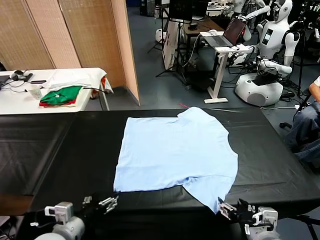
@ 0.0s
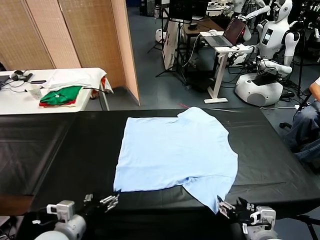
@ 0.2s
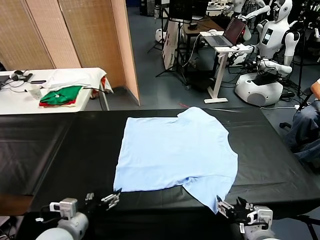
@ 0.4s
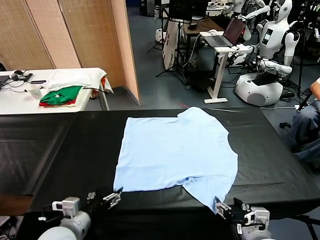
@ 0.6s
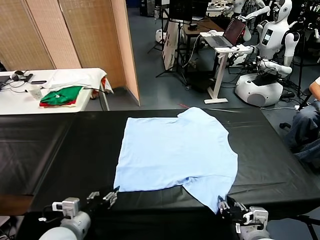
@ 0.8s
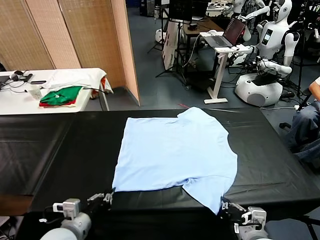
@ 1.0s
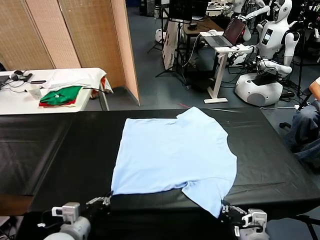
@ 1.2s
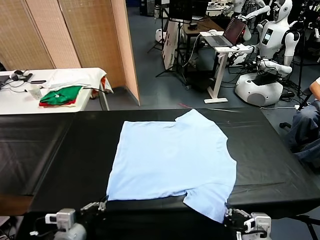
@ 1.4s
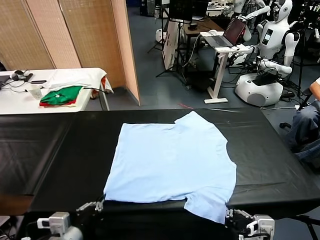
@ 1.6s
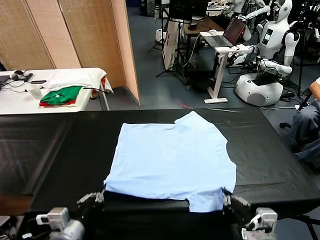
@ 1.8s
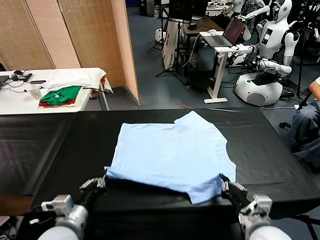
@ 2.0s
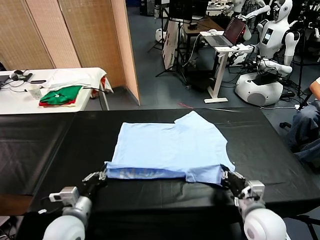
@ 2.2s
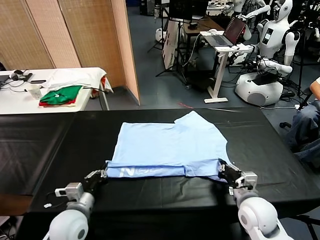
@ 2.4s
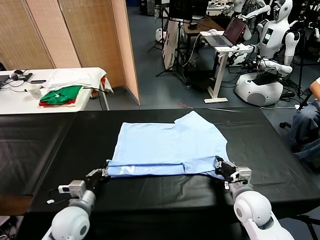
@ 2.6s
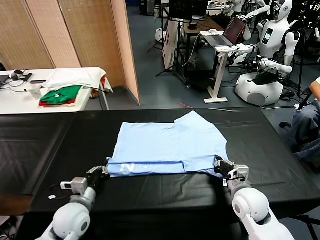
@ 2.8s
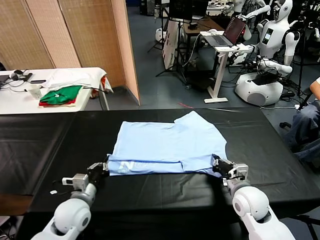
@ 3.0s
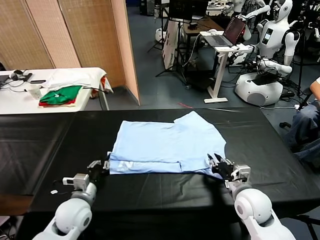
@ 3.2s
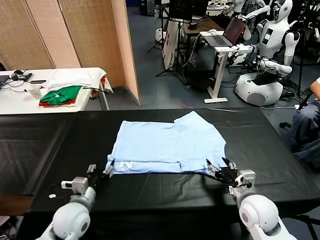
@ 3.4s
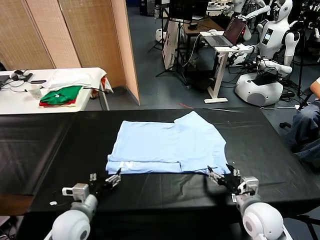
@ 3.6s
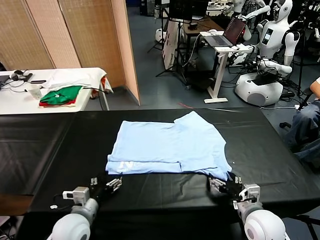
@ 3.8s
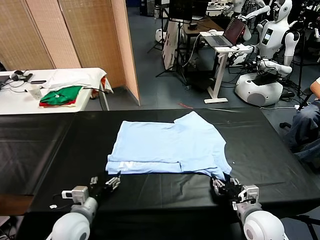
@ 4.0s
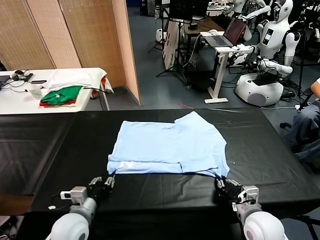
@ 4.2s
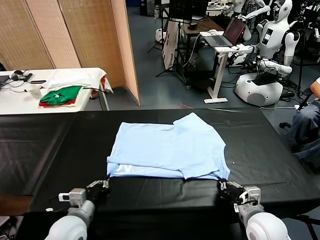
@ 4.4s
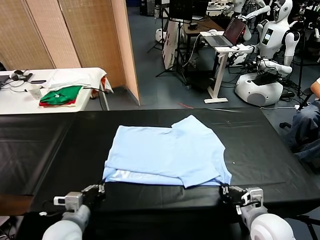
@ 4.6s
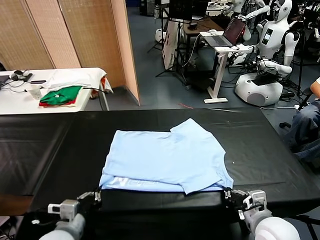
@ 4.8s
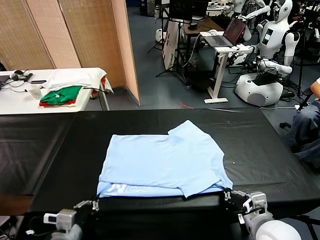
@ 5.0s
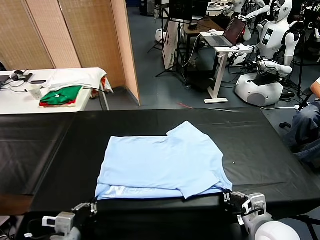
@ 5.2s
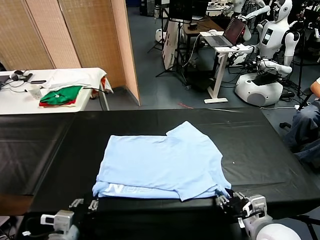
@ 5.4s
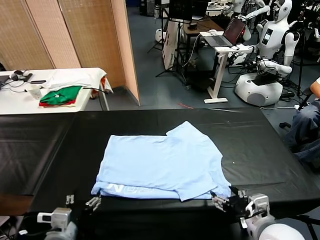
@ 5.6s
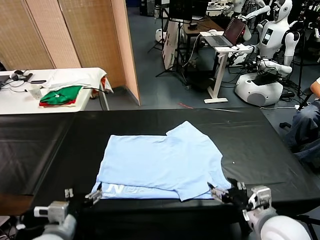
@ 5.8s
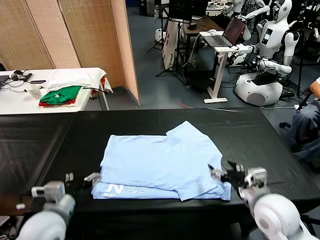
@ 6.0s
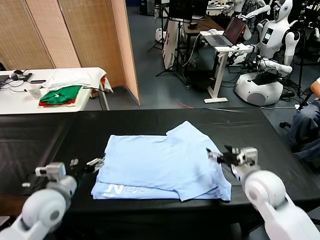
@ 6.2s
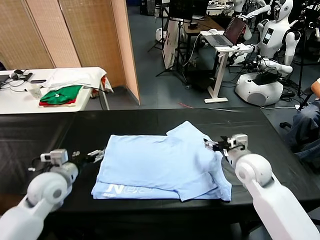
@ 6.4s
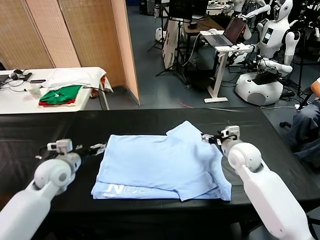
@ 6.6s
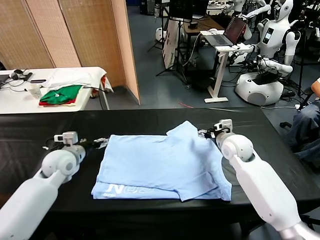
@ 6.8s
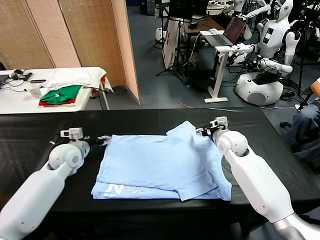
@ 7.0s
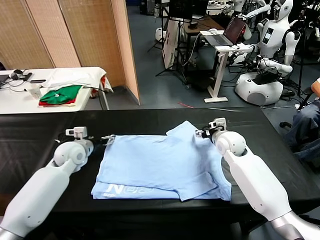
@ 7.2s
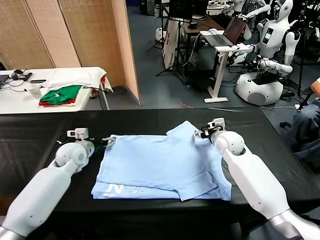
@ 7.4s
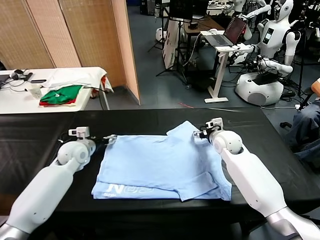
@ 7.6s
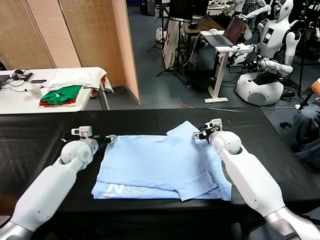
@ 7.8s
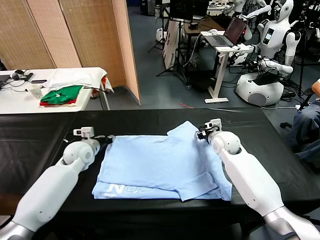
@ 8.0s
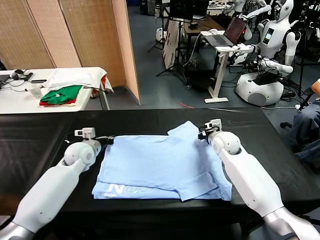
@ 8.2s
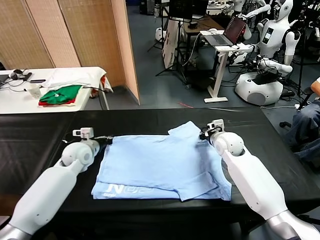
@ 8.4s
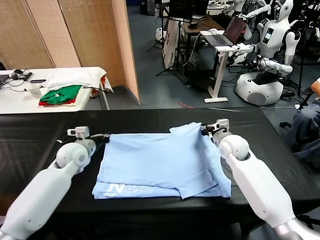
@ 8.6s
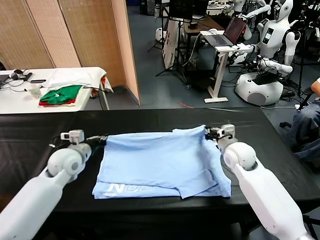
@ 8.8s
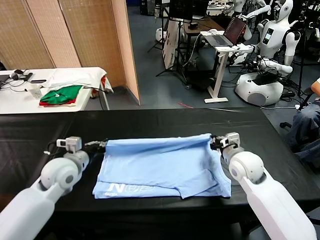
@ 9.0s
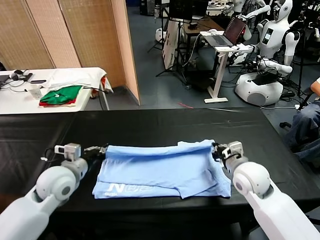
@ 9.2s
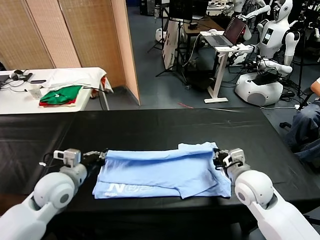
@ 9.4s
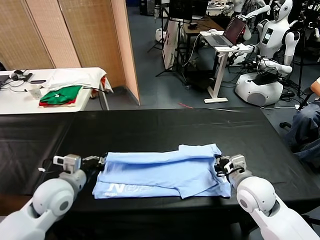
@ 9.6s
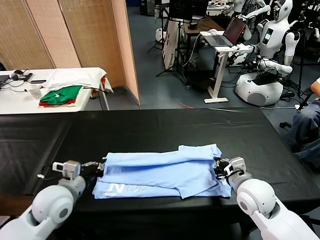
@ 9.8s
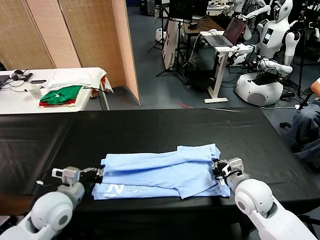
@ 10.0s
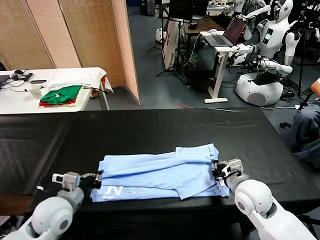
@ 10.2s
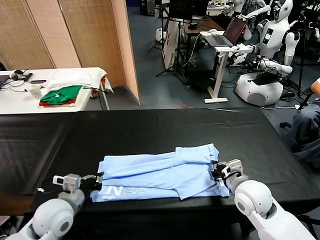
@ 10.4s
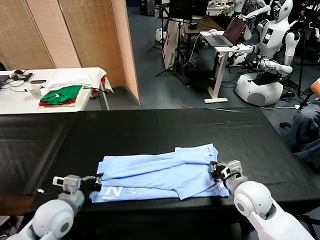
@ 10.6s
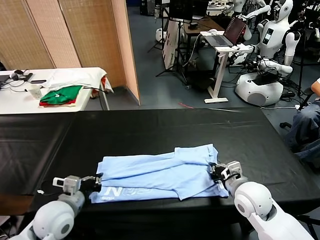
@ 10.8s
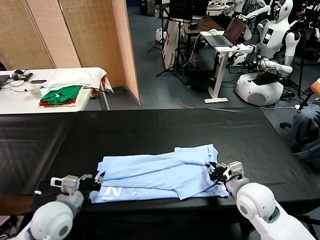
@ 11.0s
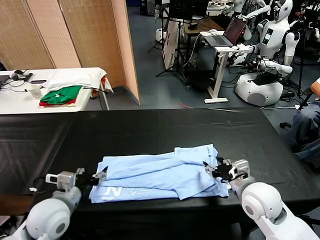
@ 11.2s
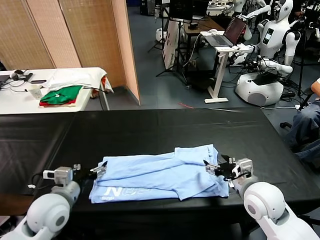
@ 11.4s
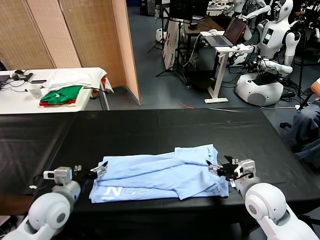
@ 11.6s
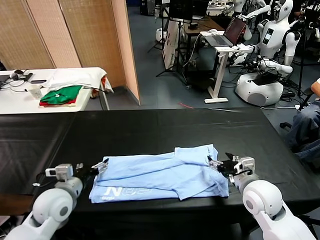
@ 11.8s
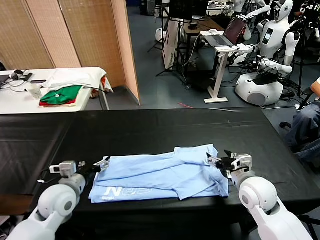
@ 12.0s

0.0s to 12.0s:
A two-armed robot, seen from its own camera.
Task of the whole recording: fold and organize the clothes.
Step, 0.0s to 1.0s: use both grippers simultaneously to clamp the lower edge of the clothing fabric.
Step, 1.2s to 3.2s: use both grippers to drag the lower edge of the fabric forward and fold it over the upper edge.
Step, 3.4s to 5.4s: Drag the clothes downward with both gripper.
Step, 5.6s to 8.0s: use both grippers simultaneously to clamp the upper edge of the clothing fabric.
Step, 8.4s to 11.2s: use both grippers to drag the upper edge of the fabric backward and fold it over the lower edge.
1.6s to 3.0s: The right gripper travels forward by roughly 10 cm, and opens; the left gripper moves forward and downward, approximately 15 cm.
3.0s to 4.4s: Both grippers move backward, approximately 5 cm. The right gripper closes; the left gripper opens and closes again.
4.4s to 6.0s: The left gripper goes some 5 cm upward, and opens its fingers. Meanwhile the right gripper is displaced forward by about 15 cm, and opens.
6.0s to 7.6s: Both grippers travel together forward, roughly 20 cm. The right gripper closes.
7.6s to 9.0s: The left gripper shifts roughly 15 cm backward and upward, and closes up; the right gripper moves backward, about 15 cm, and closes its fingers.
9.0s to 10.4s: The left gripper heads backward, covering about 10 cm.
10.4s to 12.0s: The left gripper shifts by about 5 cm, and opens its fingers. The right gripper opens up.

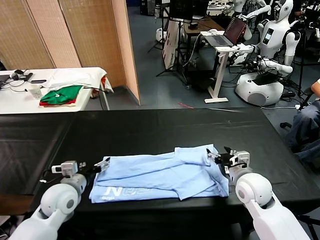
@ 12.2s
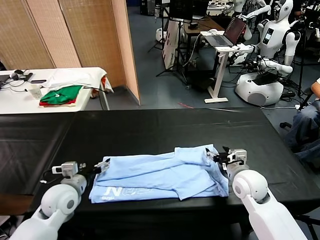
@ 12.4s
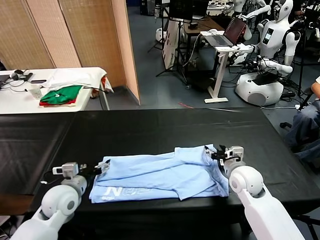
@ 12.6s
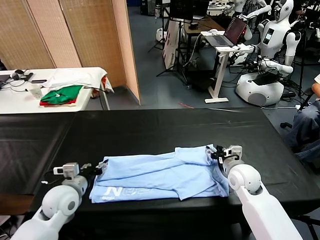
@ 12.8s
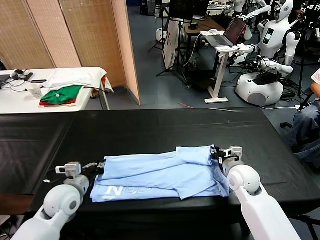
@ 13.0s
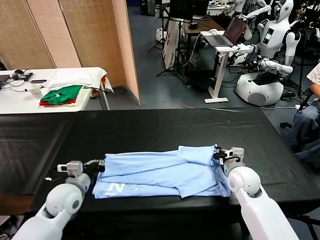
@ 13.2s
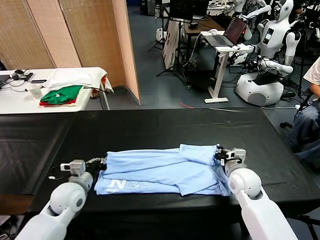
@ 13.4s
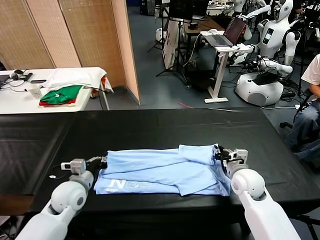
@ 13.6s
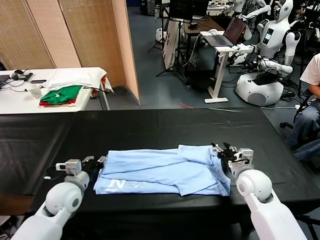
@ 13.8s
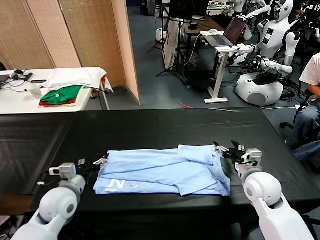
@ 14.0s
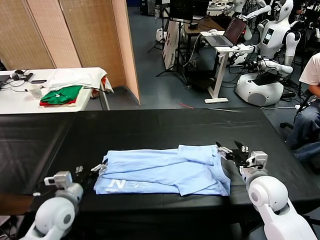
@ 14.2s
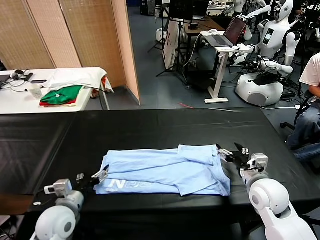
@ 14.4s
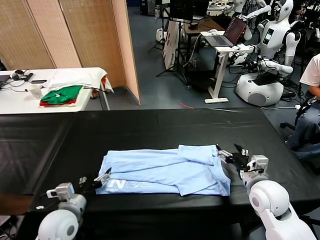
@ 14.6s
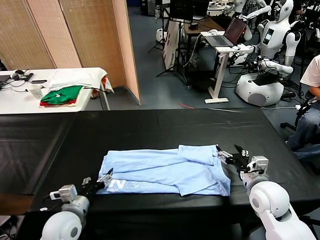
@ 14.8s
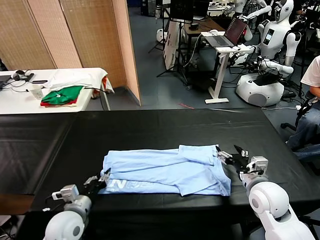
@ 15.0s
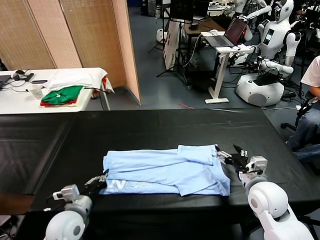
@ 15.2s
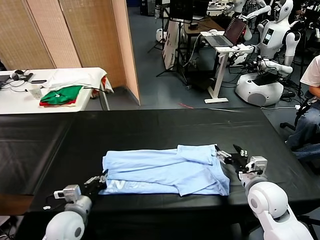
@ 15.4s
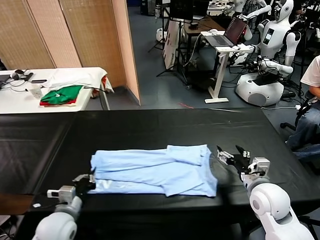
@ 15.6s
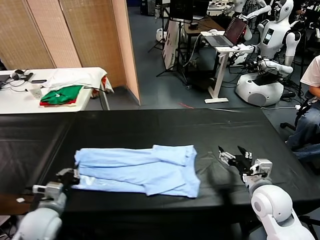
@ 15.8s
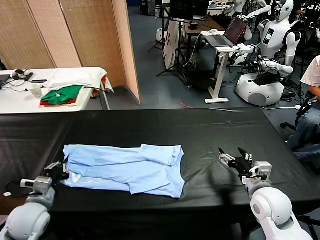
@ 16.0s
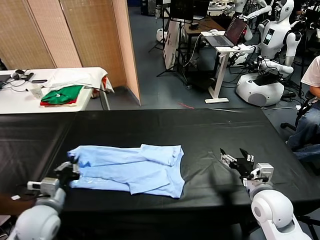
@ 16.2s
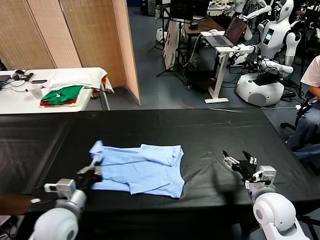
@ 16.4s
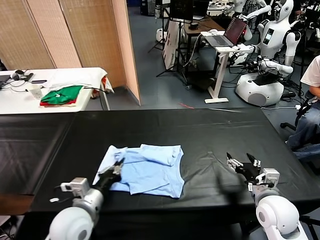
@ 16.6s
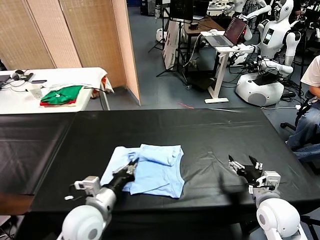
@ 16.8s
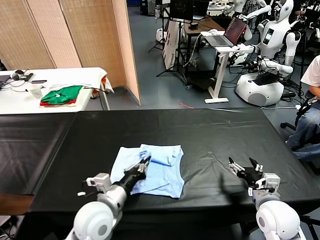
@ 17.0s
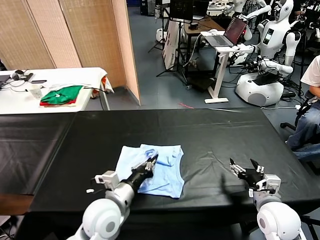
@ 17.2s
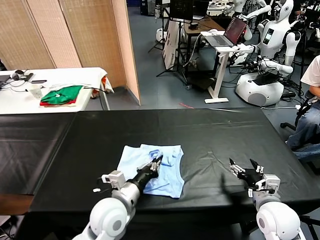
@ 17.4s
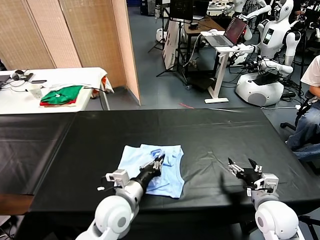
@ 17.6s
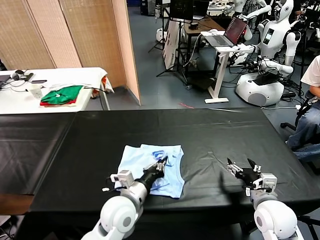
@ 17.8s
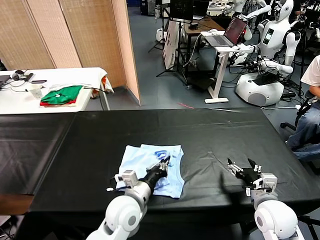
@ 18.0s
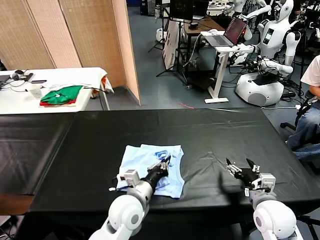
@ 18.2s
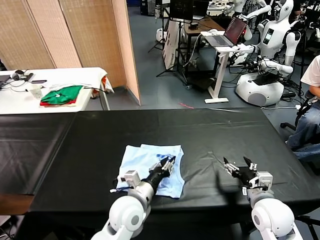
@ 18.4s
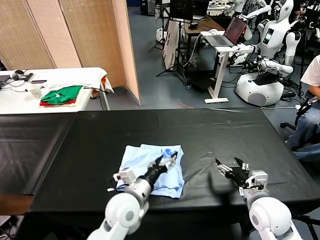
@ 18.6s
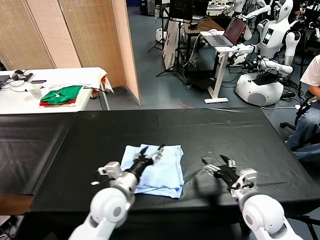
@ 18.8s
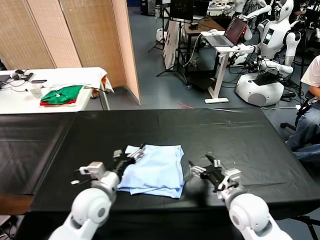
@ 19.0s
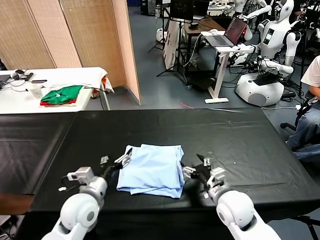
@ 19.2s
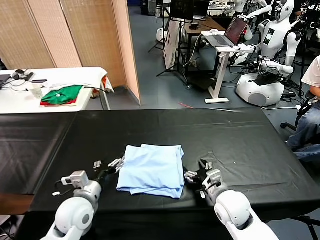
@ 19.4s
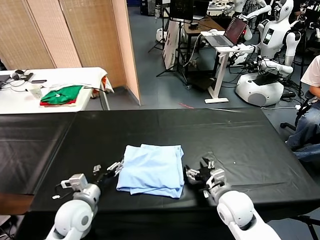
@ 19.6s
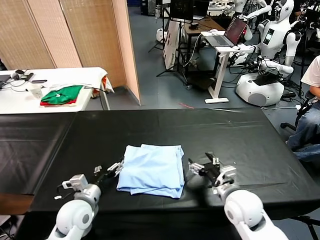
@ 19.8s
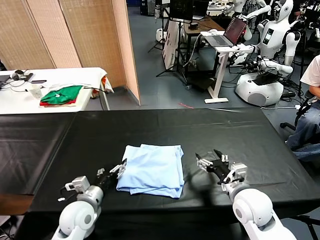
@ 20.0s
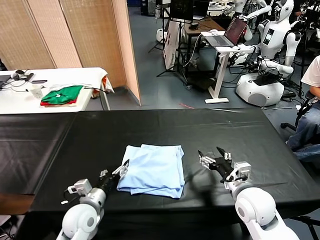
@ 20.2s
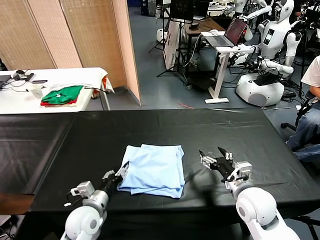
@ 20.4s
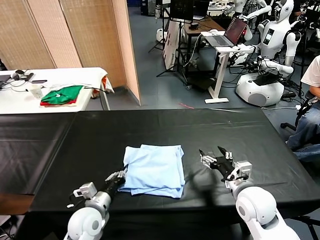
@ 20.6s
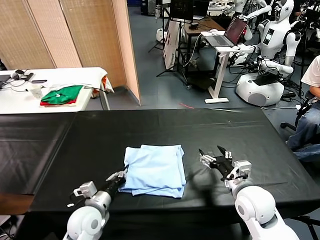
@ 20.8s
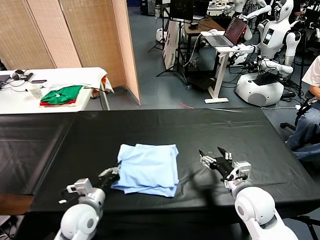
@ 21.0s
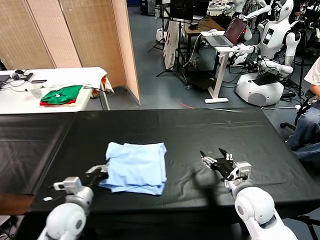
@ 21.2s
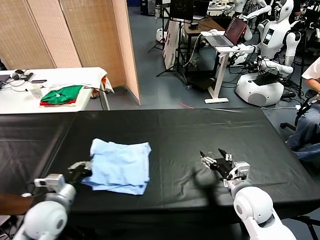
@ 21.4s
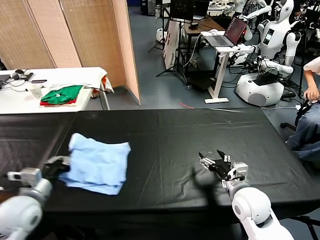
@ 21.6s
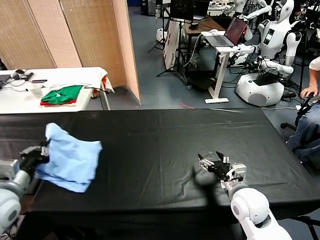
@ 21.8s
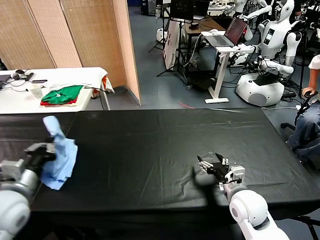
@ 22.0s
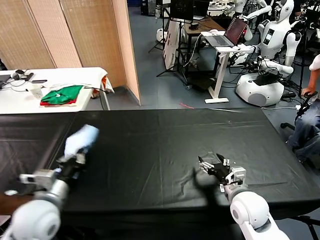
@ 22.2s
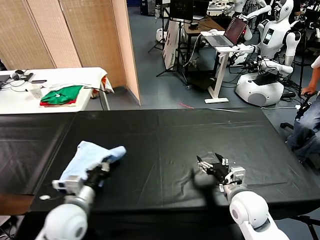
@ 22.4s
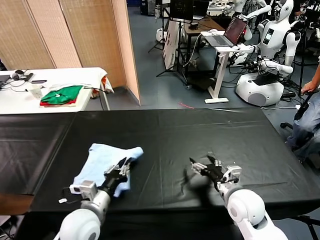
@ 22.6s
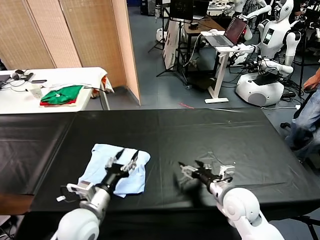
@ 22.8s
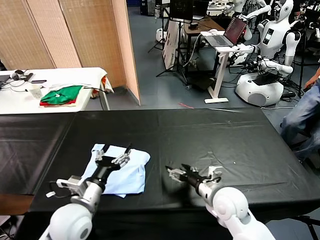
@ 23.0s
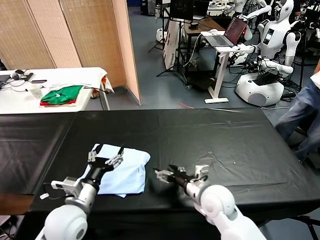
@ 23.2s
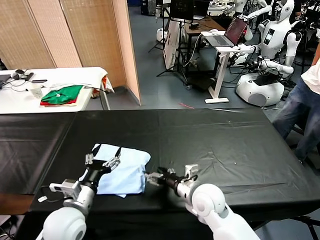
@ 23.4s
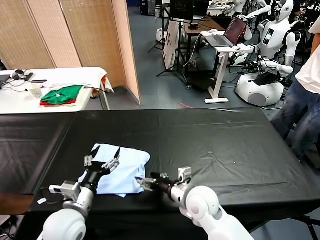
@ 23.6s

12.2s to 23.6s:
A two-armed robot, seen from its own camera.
Task of the whole recording: fold and organize the clothes.
Step, 12.2s to 15.0s: use the left gripper to clamp the left edge of the fabric.
Step, 15.4s to 18.4s: use the left gripper to drag the left edge of the fabric to the left and folds it over the right edge.
Step, 18.6s to 22.6s: Flip the folded clothes over with left gripper.
12.2s to 13.6s: The right gripper closes its fingers, while the left gripper closes.
13.6s to 15.0s: The two grippers go approximately 5 cm backward. The left gripper opens and closes again, while the right gripper opens.
15.0s to 16.4s: The left gripper heads upward, covering about 5 cm, and moves some 10 cm to the left and comes back.
16.4s to 17.8s: The left gripper heads to the right, covering about 15 cm.
17.8s to 19.4s: Both grippers move to the left, approximately 10 cm. The left gripper opens.
19.4s to 20.8s: The right gripper shifts by approximately 5 cm. Meanwhile the left gripper moves downward, roughly 5 cm, and closes up.
20.8s to 22.2s: The left gripper shifts approximately 15 cm upward and to the left.
22.2s to 23.6s: The left gripper heads to the right and downward, covering roughly 10 cm, and opens up; the right gripper is displaced to the left by about 15 cm.
